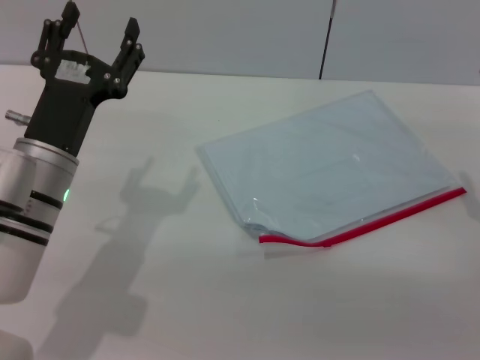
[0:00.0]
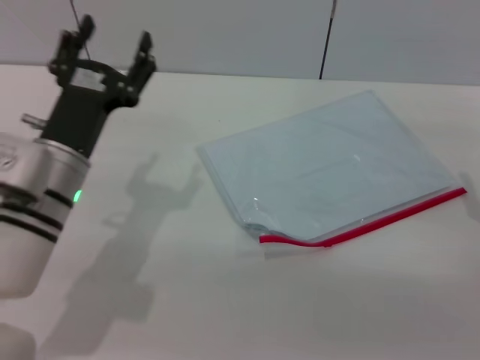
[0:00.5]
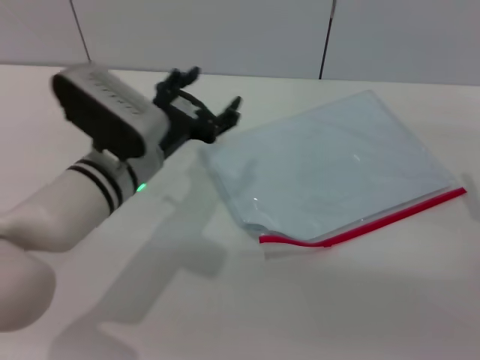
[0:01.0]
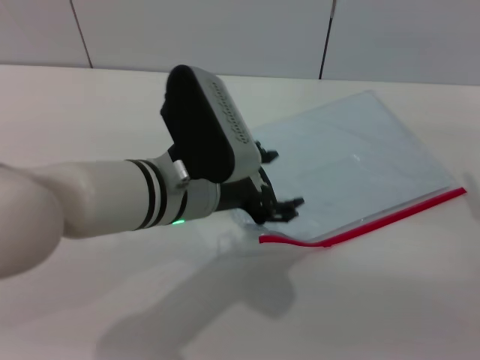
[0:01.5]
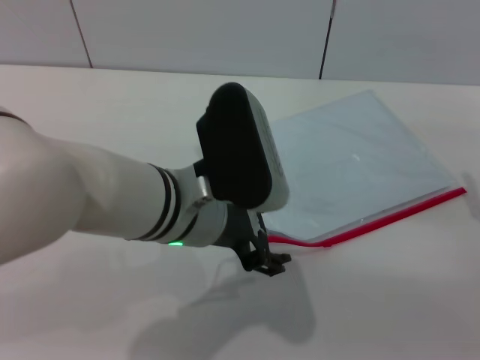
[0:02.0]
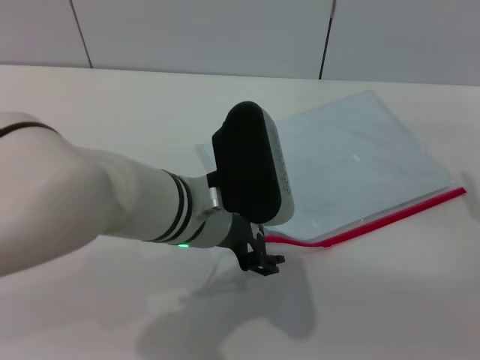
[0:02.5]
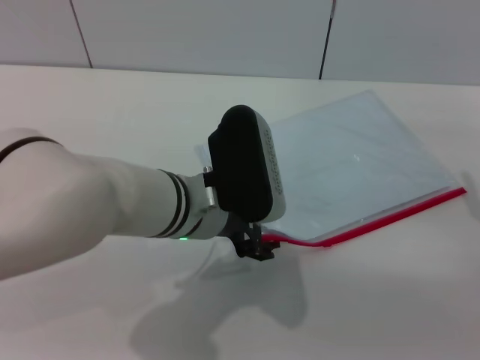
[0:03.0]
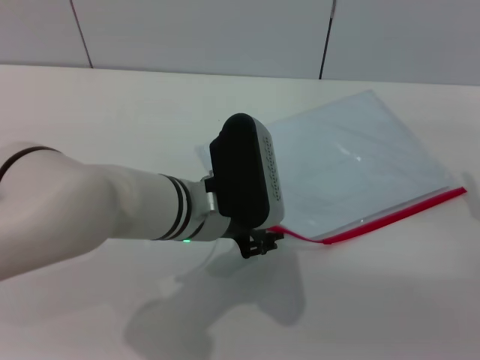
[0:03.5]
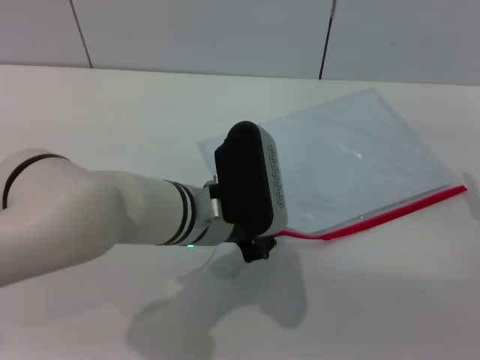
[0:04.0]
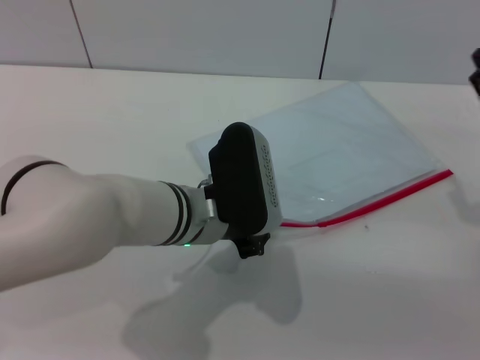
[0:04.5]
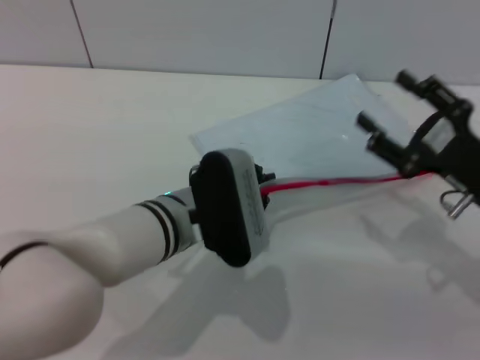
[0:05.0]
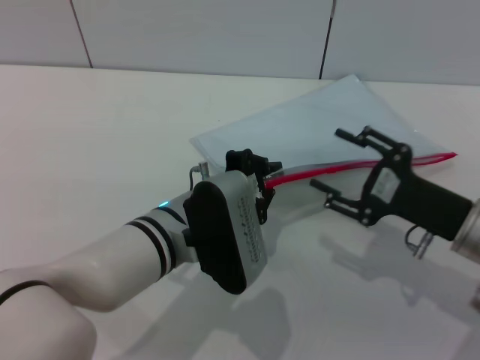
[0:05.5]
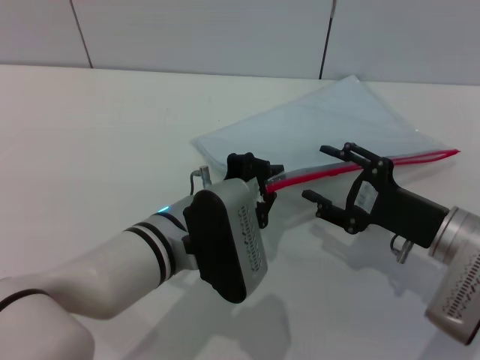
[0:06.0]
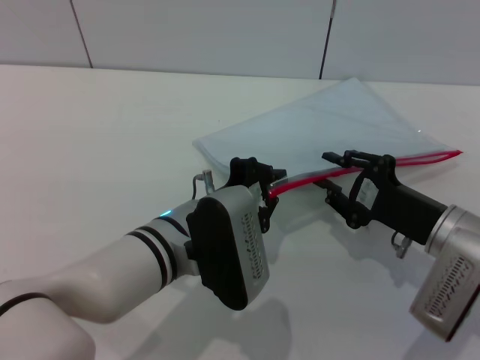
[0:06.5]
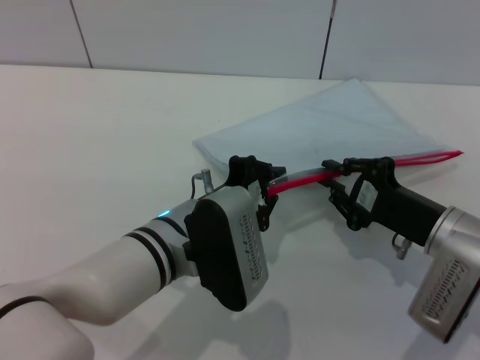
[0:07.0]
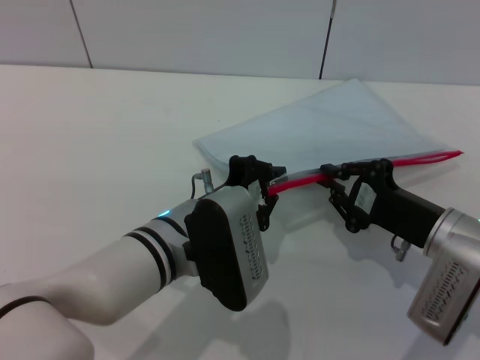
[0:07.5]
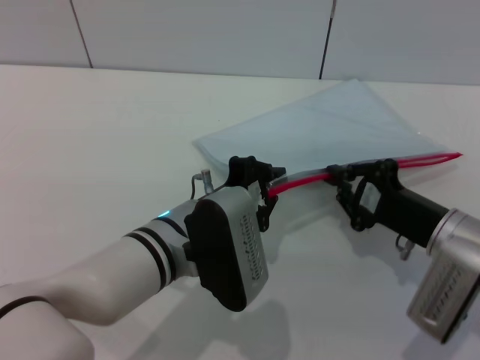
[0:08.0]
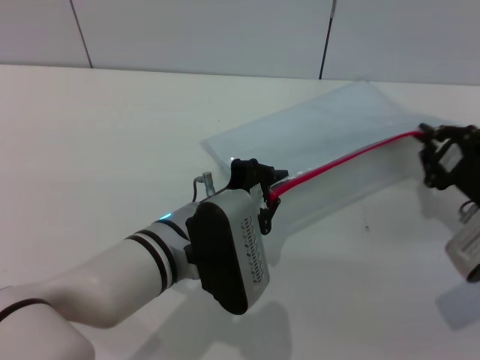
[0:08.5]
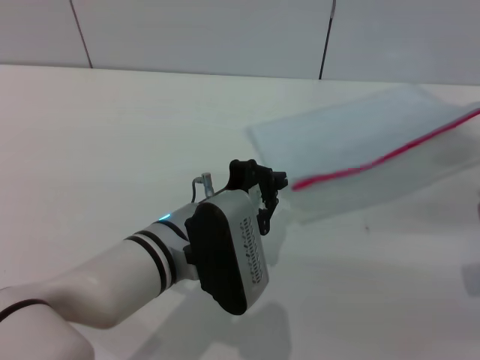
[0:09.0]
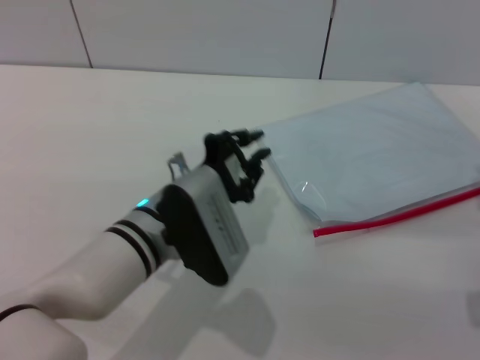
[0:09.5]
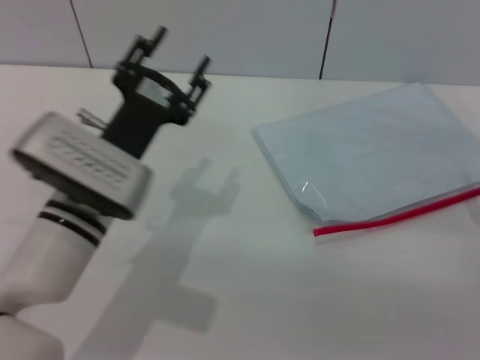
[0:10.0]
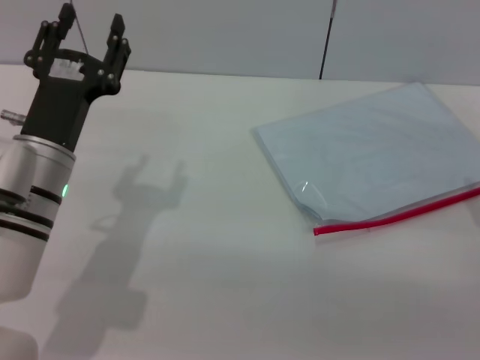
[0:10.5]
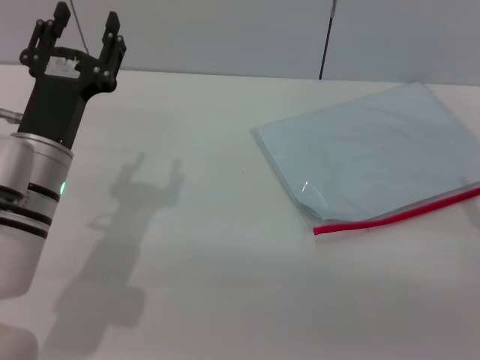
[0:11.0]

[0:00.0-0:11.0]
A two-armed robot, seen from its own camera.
Step, 0:00.0 to 0:05.5: Pick up the transparent plastic bag with the left gripper.
Step, 0:06.0 to 0:09.0: Pulling up the zipper on the transparent plastic bag with the right gripper to close it.
0:00.0 to 0:02.0: The left gripper shifts roughly 15 cm to the right and upward.
0:02.0 to 0:03.5: The left gripper shifts by roughly 5 cm.
0:03.5 to 0:05.5: The left gripper closes up, while the right gripper is displaced to the left by roughly 5 cm.
0:05.5 to 0:07.5: The right gripper closes.
0:07.5 to 0:09.0: The right gripper heads to the right, covering some 10 cm.
0:09.0 to 0:11.0: The right gripper shifts by approximately 5 cm, and opens. Meanwhile the left gripper moves to the left, some 10 cm, and opens its fingers.

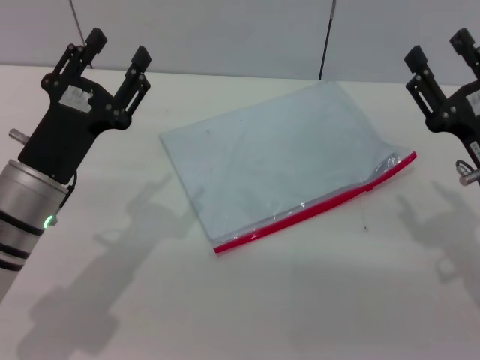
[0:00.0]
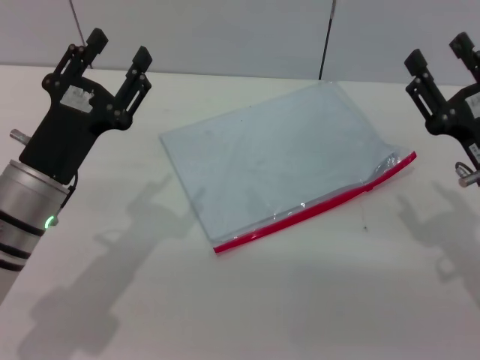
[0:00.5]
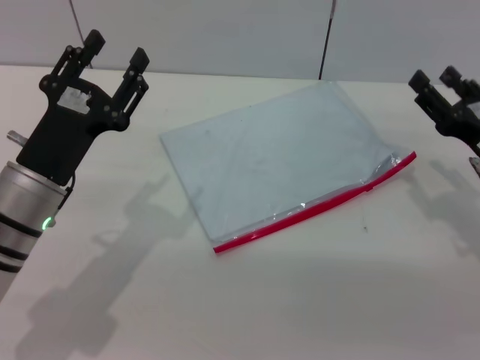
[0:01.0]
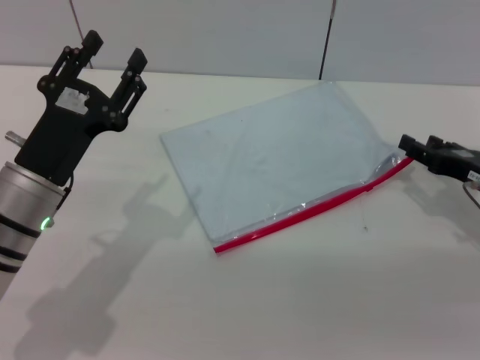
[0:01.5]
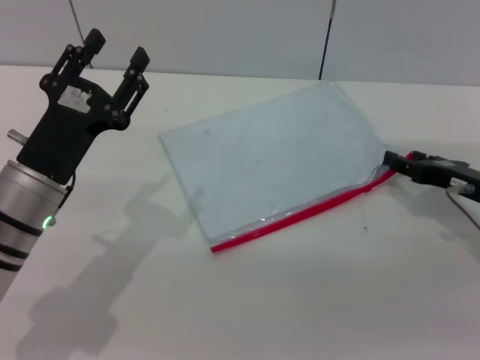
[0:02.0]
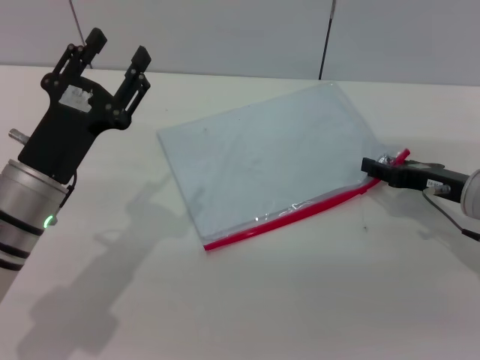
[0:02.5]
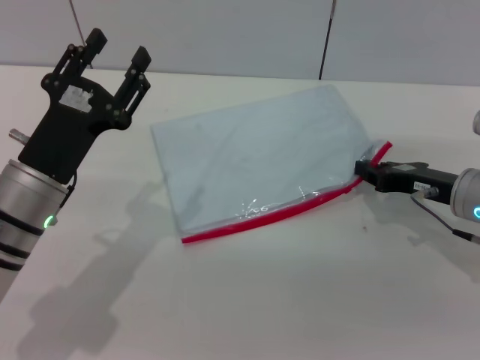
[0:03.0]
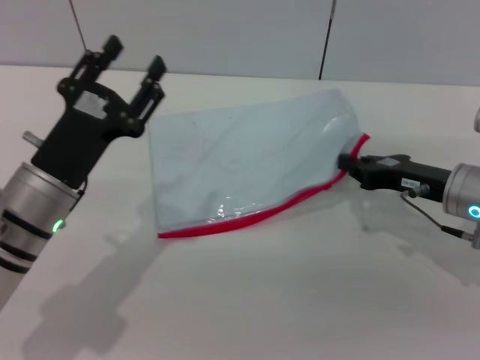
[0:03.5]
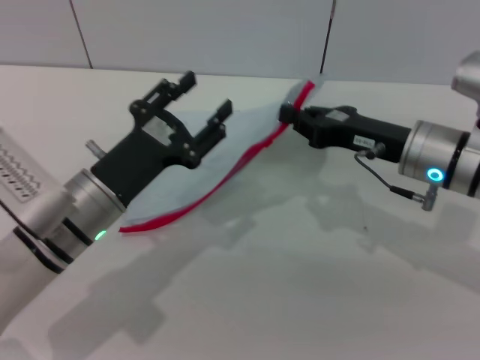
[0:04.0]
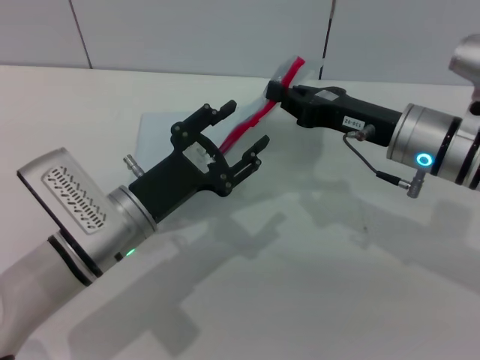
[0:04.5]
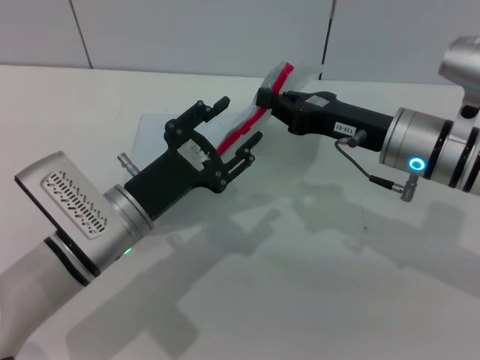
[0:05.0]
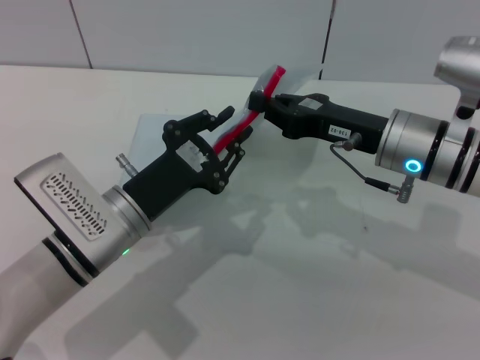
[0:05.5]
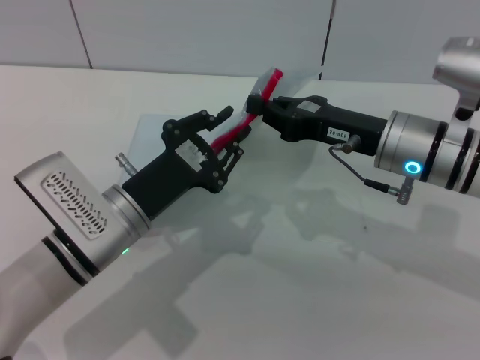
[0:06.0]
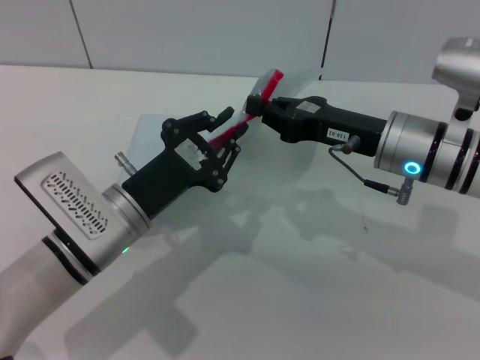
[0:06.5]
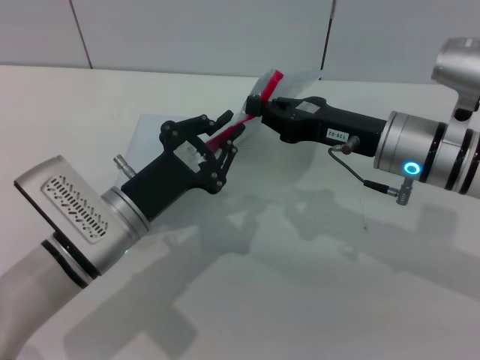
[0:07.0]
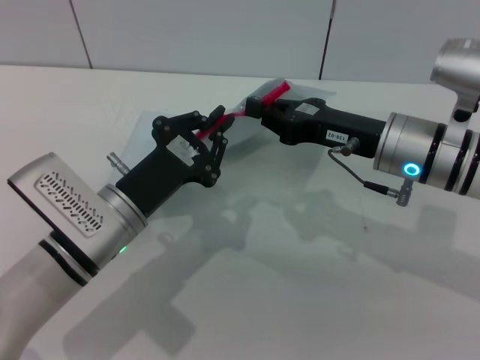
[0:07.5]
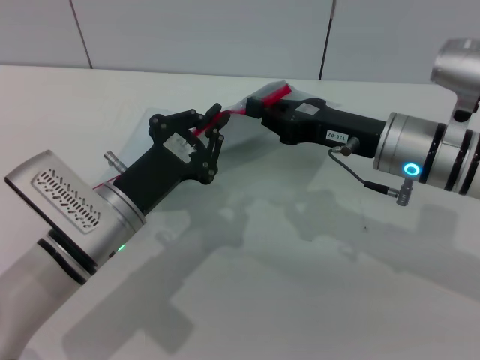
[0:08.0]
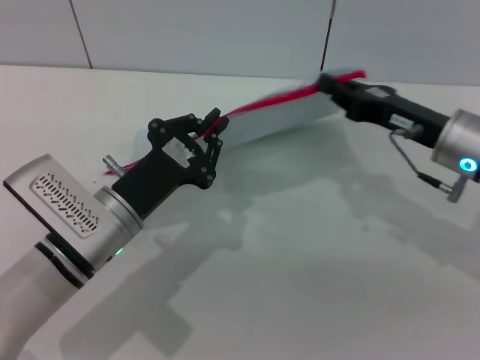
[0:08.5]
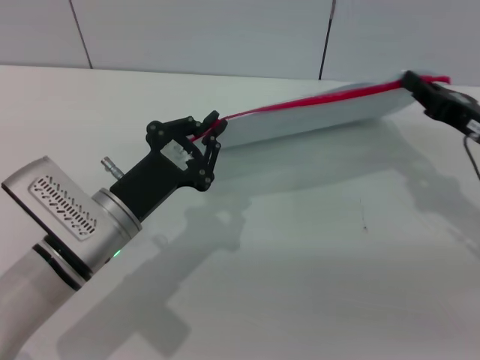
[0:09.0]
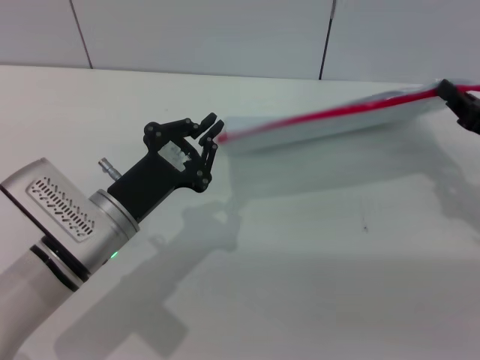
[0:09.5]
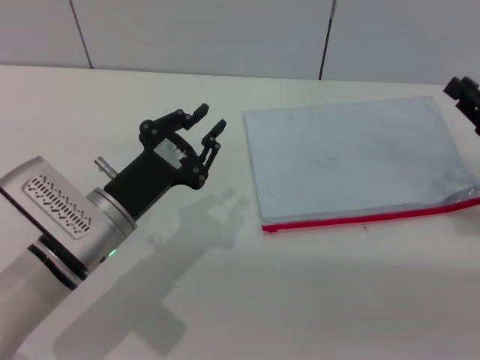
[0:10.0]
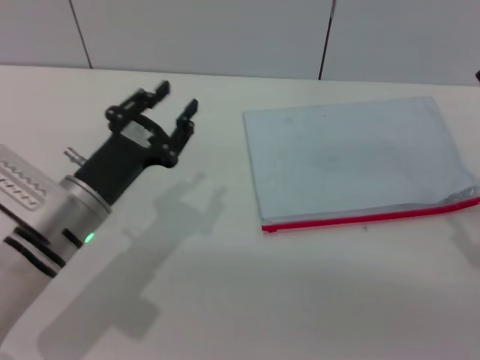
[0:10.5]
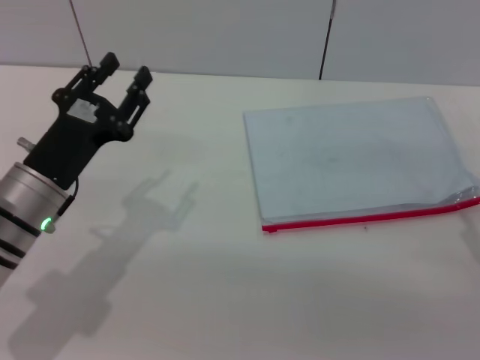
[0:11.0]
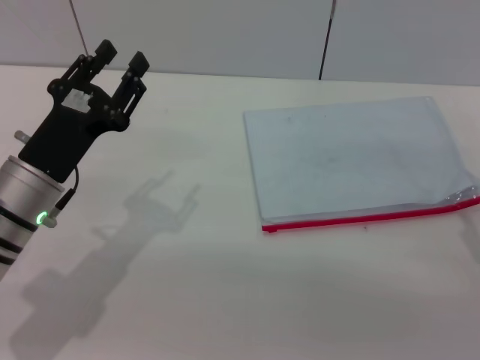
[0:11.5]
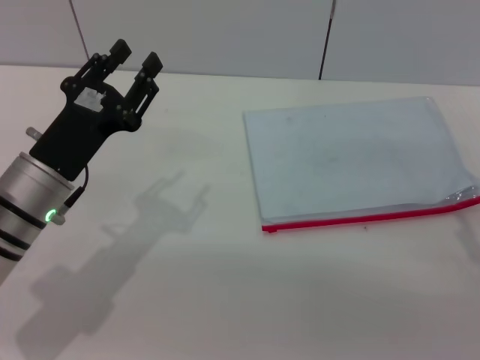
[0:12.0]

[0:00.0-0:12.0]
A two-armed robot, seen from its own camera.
Step, 0:00.0 to 0:04.0: Pick up the transparent plastic bag with the right gripper.
Step, 0:10.0 to 0:10.5: Place the transparent plastic bag.
0:00.0 to 0:02.0: The right gripper heads forward, covering roughly 5 cm.
0:02.0 to 0:04.0: The right gripper is displaced to the left and upward by roughly 10 cm, and closes.
0:04.0 to 0:06.0: The left gripper closes its fingers.
0:06.0 to 0:08.0: The left gripper closes its fingers.
0:08.0 to 0:10.0: The right gripper goes approximately 15 cm to the right.
0:10.0 to 0:12.0: The left gripper ends up approximately 5 cm from where it was, and opens. Meanwhile the right gripper travels backward by roughly 5 cm, and opens its fingers.

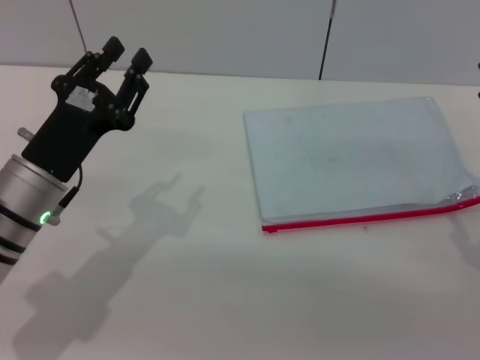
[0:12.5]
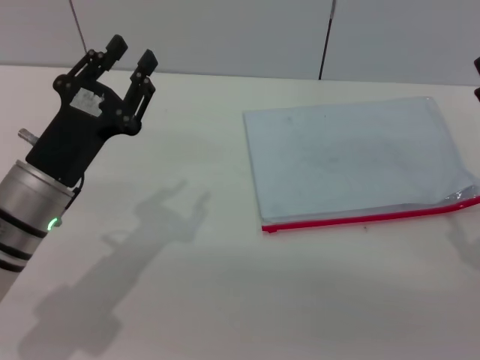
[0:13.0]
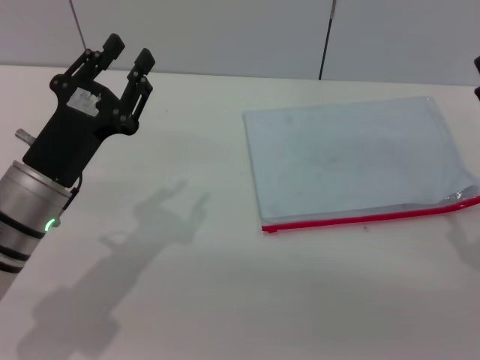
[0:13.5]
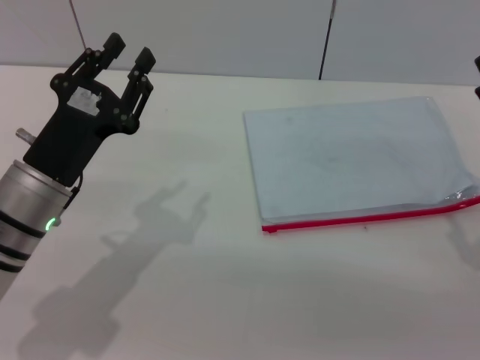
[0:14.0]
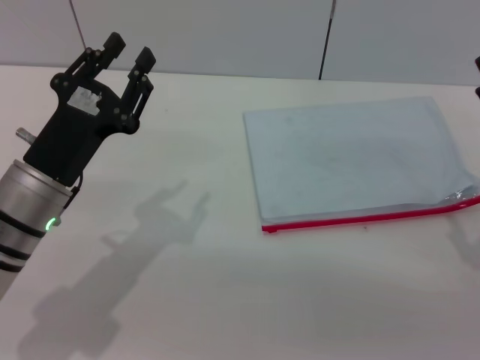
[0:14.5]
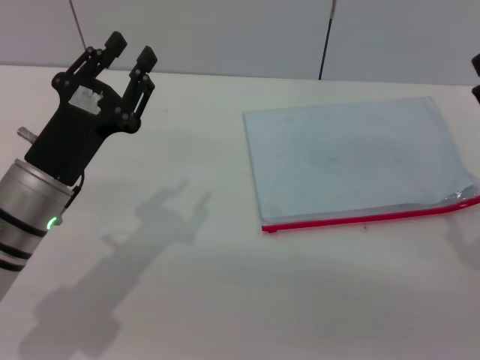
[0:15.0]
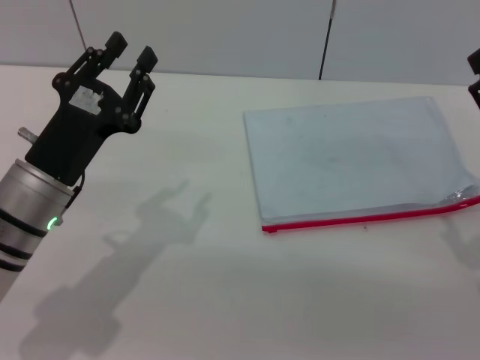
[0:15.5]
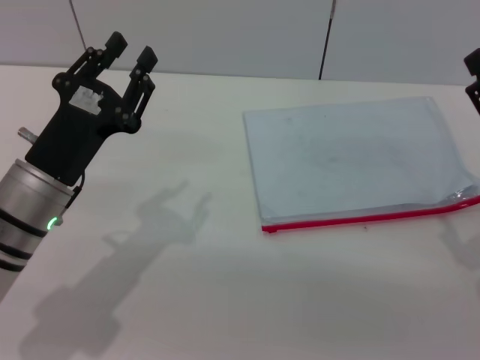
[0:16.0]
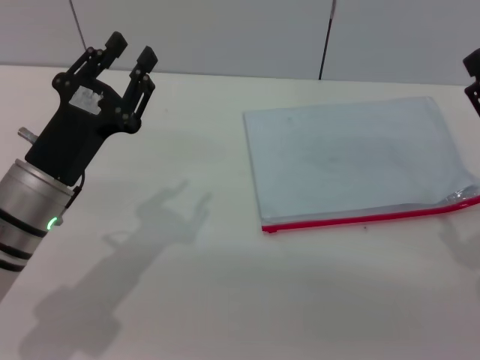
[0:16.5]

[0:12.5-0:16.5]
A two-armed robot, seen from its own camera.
0:12.5 to 0:14.5: The grippers move only a little.
0:14.5 to 0:16.5: Both grippers stay put.
